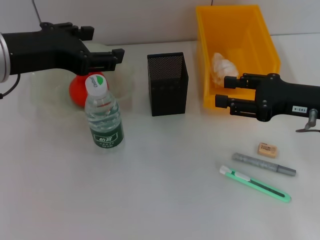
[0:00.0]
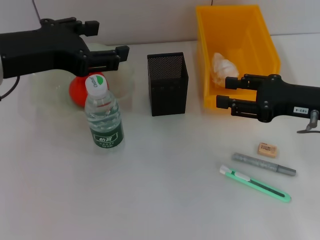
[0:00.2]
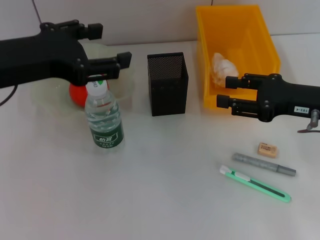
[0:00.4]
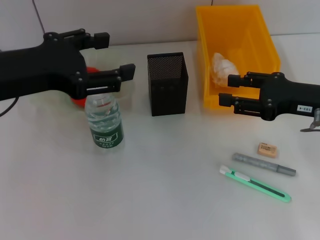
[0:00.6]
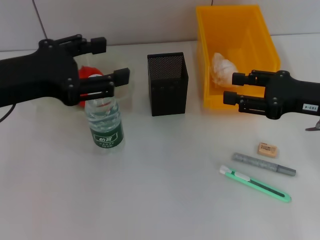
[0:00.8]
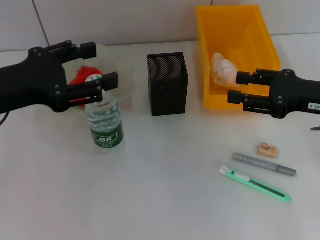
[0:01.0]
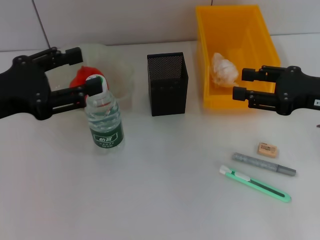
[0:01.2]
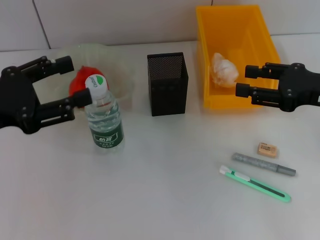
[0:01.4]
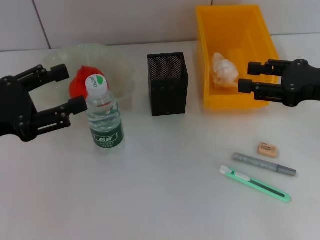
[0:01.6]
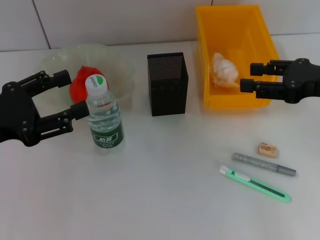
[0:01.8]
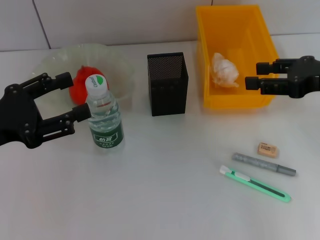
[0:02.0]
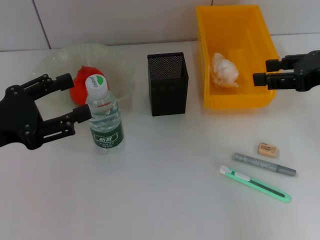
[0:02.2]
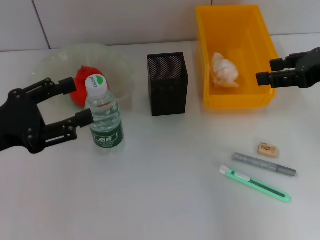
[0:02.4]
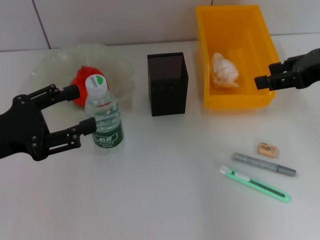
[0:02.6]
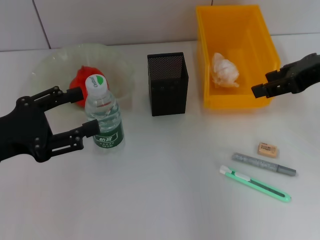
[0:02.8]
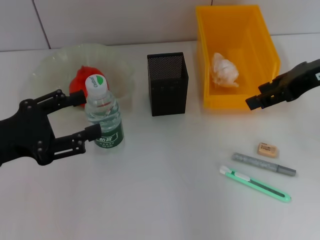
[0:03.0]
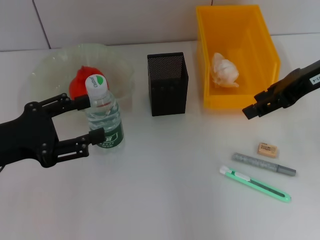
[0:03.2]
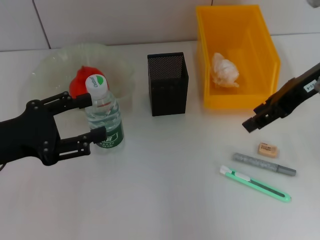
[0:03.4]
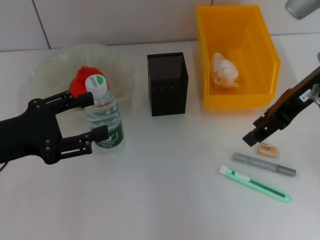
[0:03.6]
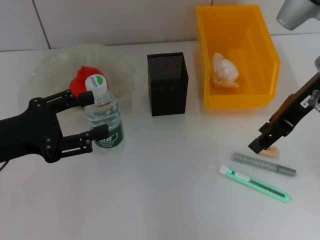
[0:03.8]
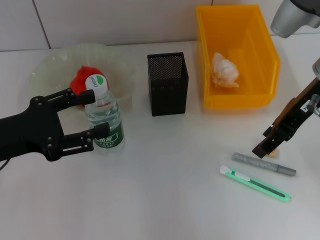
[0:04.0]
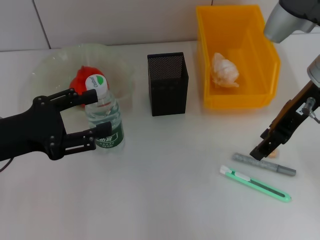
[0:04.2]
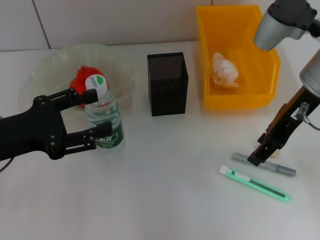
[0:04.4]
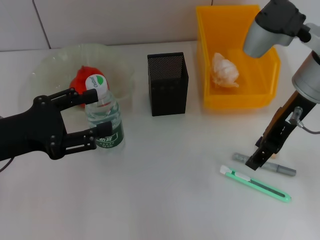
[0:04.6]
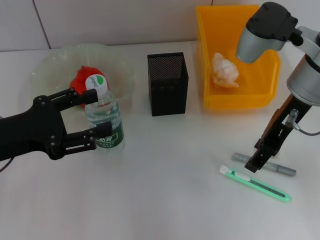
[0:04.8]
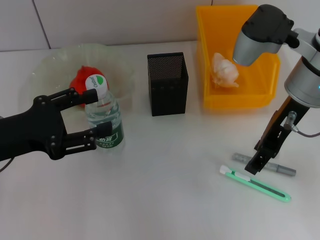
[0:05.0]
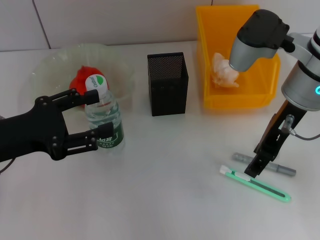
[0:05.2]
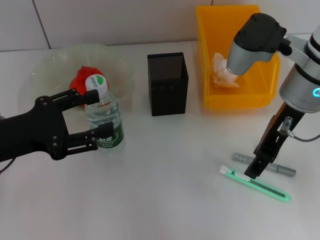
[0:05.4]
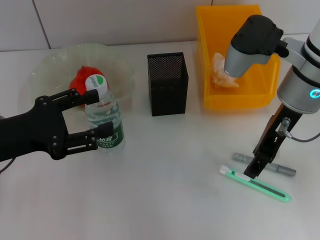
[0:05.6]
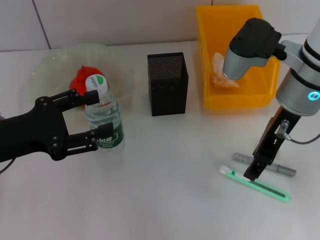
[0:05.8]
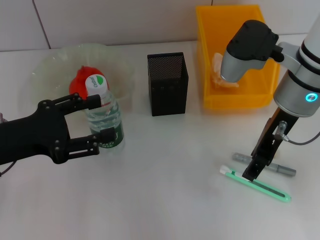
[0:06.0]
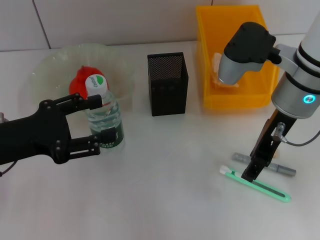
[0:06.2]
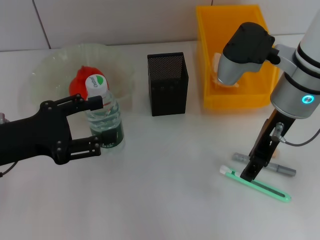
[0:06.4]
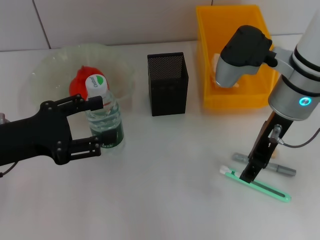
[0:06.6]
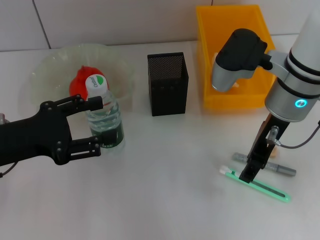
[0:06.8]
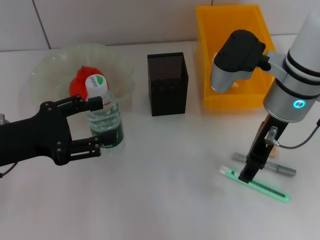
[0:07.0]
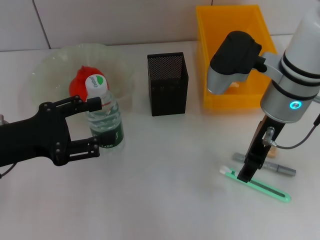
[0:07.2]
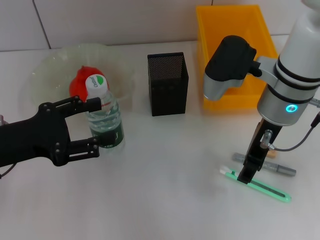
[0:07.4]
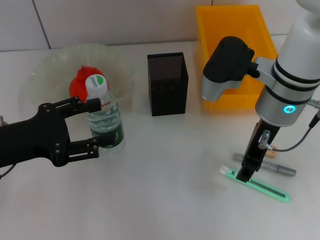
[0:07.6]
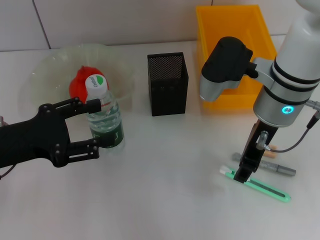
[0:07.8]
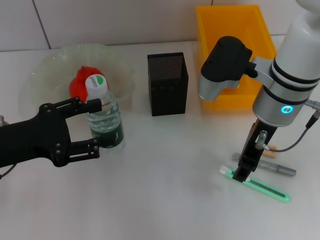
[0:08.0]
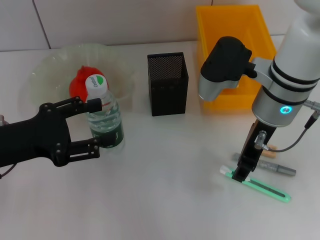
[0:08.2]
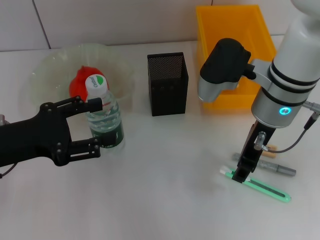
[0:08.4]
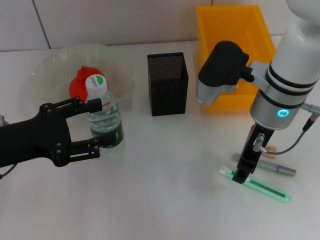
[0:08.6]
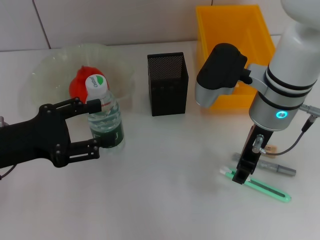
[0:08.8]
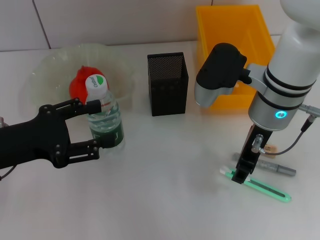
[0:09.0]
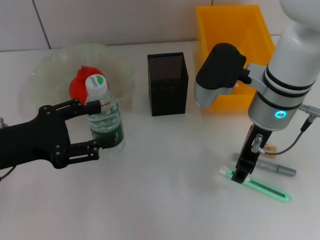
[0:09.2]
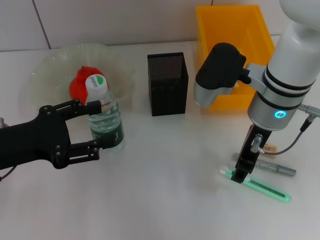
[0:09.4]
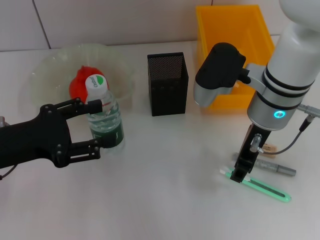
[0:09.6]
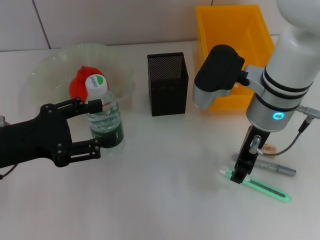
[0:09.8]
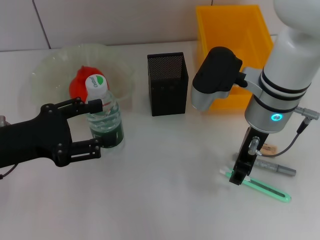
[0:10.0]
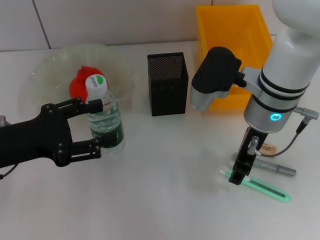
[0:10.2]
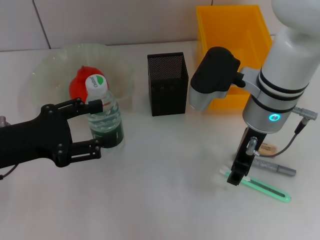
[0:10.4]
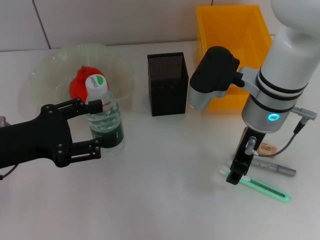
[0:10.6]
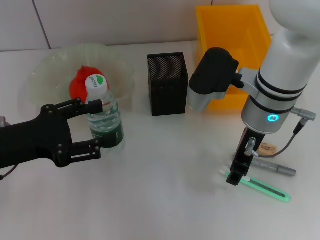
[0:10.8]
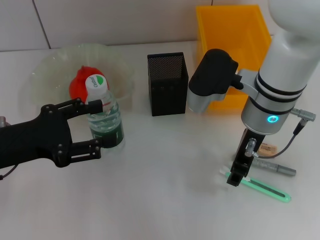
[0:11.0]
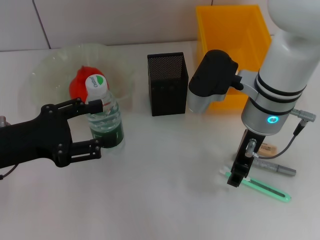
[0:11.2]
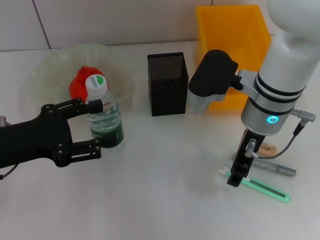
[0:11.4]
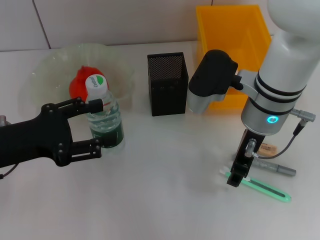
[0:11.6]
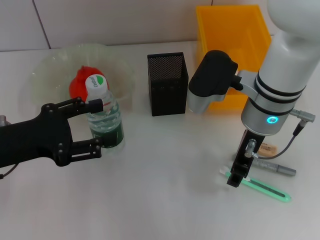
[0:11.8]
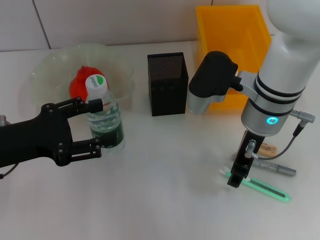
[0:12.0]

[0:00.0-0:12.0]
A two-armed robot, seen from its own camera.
0:00.0 to 0:01.6: The left gripper moves downward and to the left, roughly 10 cm.
0:01.6 to 0:03.0: The right gripper is displaced upward by approximately 5 cm.
0:03.0 to 0:04.4: The right gripper travels to the left by about 5 cm.
0:04.4 to 0:06.0: The grippers make only small movements.
0:06.0 to 0:07.6: The grippers move only a little.
0:07.6 to 0:09.0: Neither gripper changes place.
0:09.0 to 0:12.0: The two grippers keep their place.

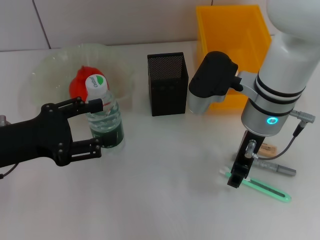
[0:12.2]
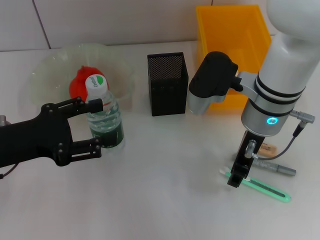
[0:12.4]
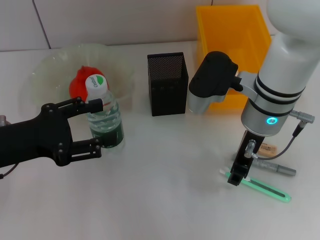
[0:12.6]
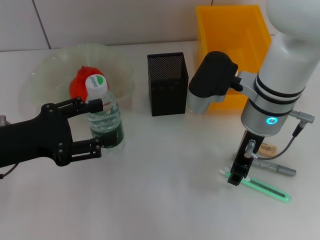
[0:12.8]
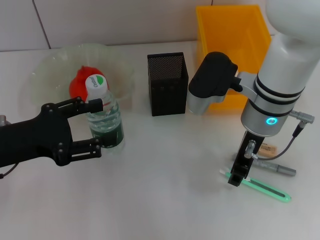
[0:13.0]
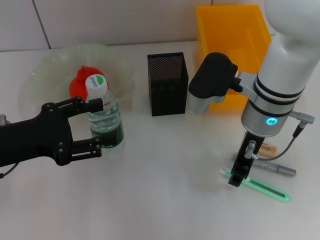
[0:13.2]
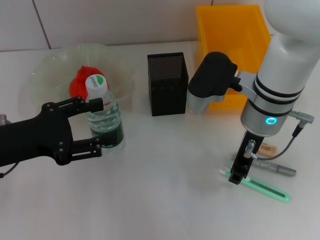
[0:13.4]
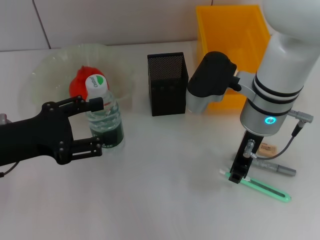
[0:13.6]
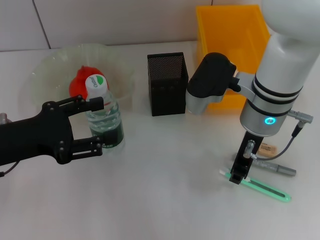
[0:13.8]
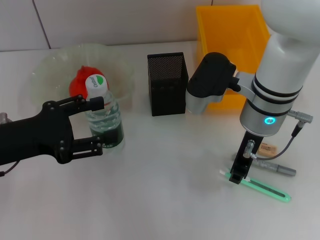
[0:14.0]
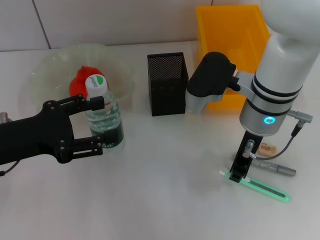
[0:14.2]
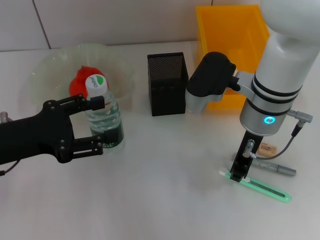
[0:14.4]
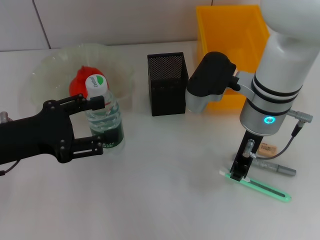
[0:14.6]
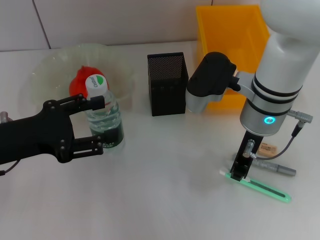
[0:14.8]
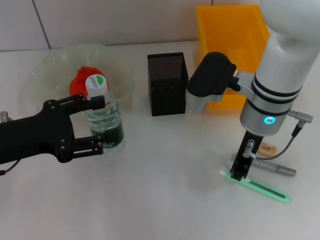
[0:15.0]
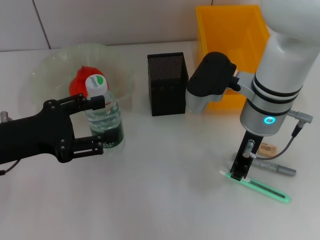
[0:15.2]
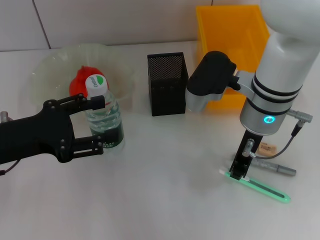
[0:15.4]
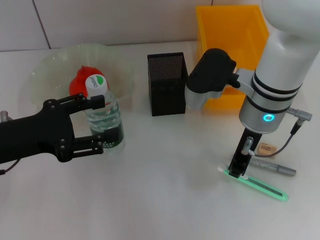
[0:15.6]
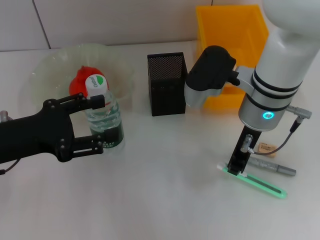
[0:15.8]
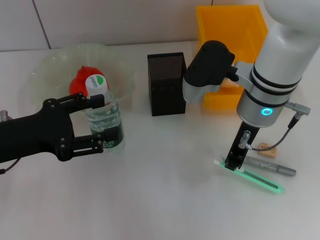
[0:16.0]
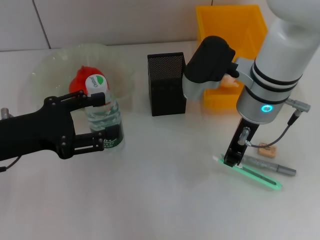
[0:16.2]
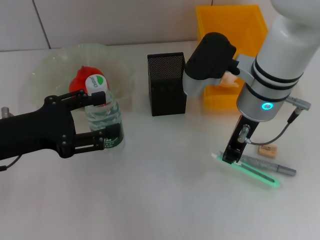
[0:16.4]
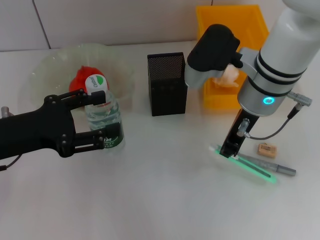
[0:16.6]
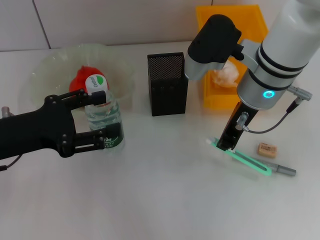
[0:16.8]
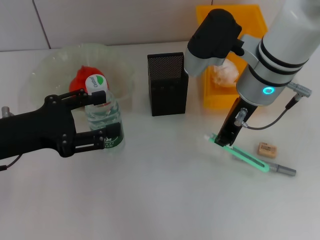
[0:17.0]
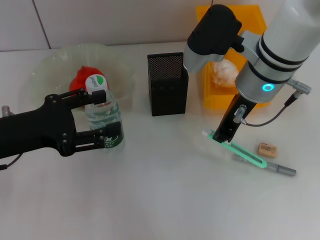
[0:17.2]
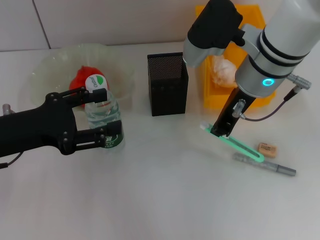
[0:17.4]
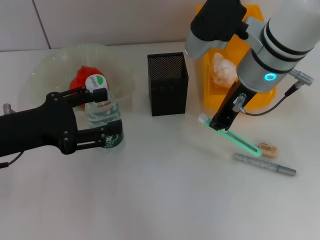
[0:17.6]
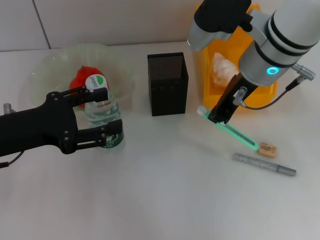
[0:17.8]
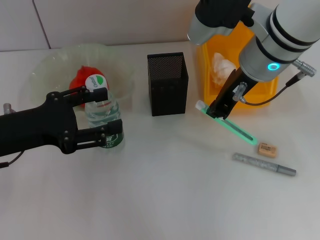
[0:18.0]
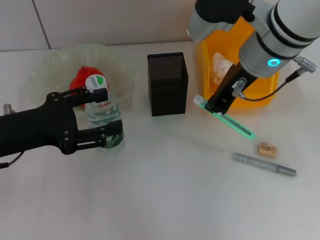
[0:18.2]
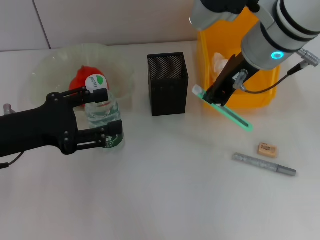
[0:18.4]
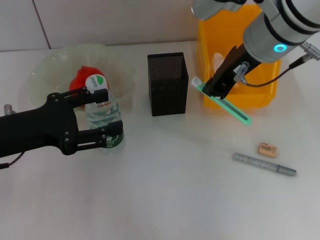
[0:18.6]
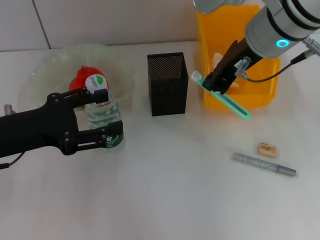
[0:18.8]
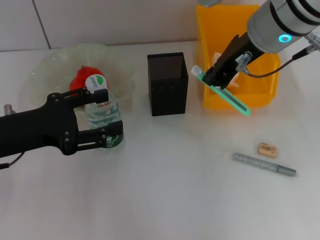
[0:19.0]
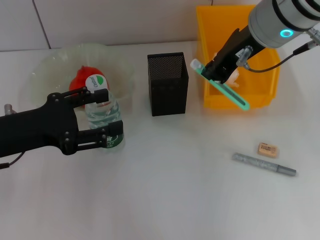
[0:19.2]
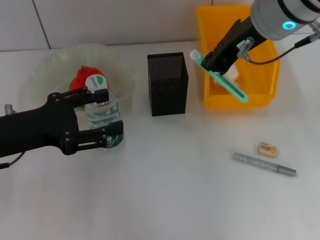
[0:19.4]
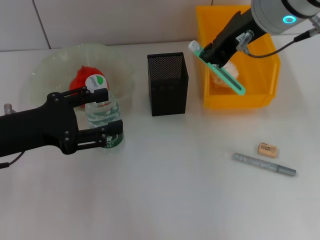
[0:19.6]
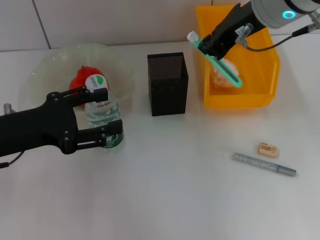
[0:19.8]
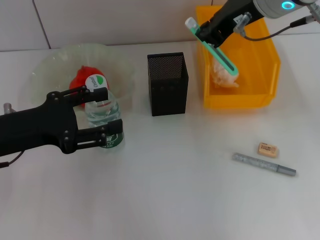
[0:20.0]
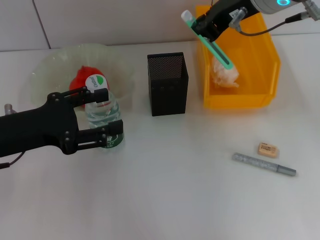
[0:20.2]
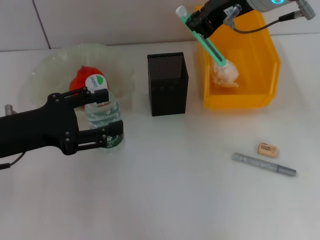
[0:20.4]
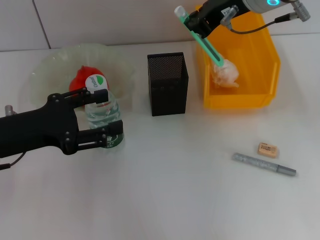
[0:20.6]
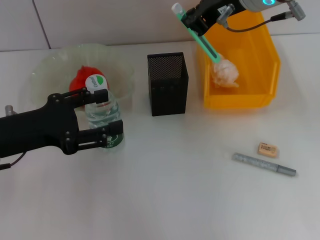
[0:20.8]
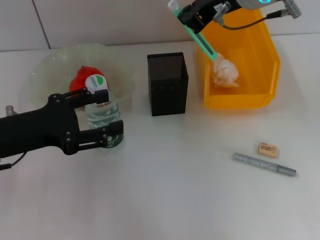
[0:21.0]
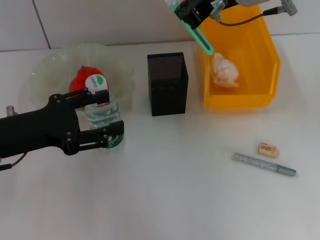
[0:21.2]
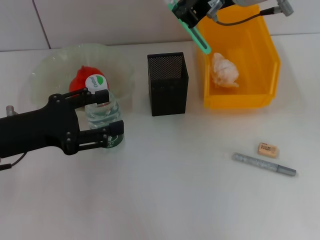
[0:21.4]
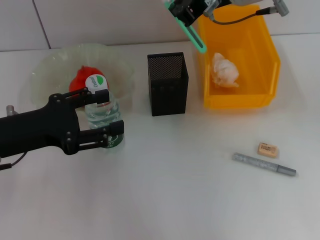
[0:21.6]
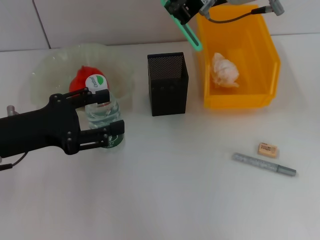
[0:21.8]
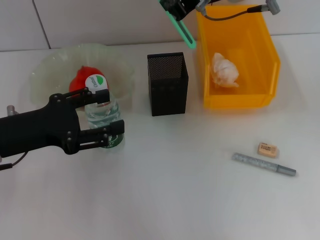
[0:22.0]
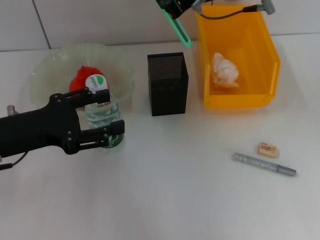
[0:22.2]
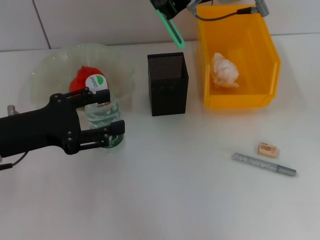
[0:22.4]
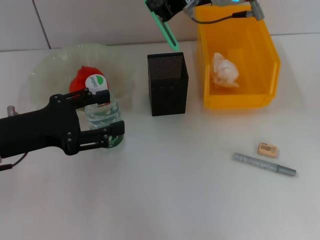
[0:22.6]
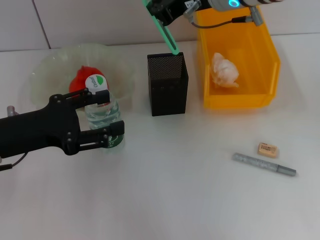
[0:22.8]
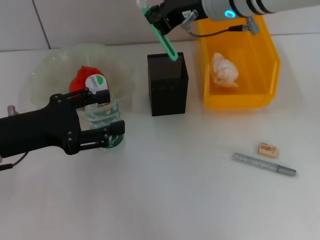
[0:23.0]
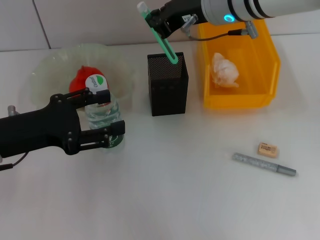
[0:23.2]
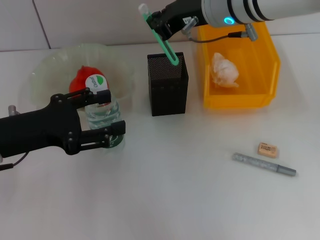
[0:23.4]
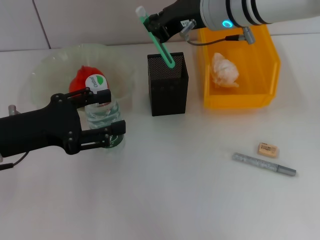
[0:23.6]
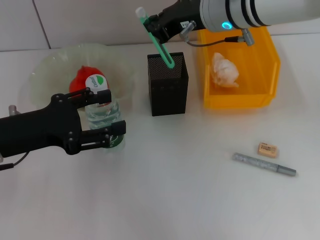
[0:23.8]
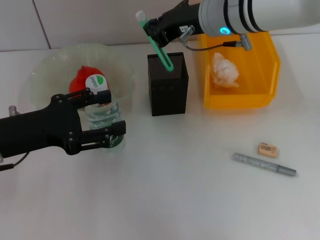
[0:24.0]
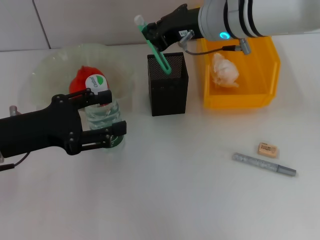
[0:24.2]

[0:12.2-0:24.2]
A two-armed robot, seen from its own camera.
Step, 0:12.2 to 0:15.4: Grab the blue utility knife with the right hand.
0:12.2 to 0:15.2: Both grippers stay put.
0:15.2 to 0:16.6: The grippers stay close to where they were, moving slightly.
0:16.6 to 0:18.2: The right gripper goes approximately 5 cm upward.
0:18.2 to 0:19.8: The right gripper shifts approximately 5 cm upward.
0:19.8 to 0:21.2: The grippers make only small movements.
0:21.2 to 0:22.6: There are only small adjustments of the grippers.
0:22.6 to 0:24.2: The right gripper goes some 5 cm downward.
